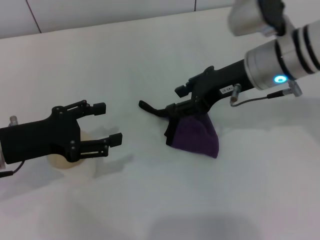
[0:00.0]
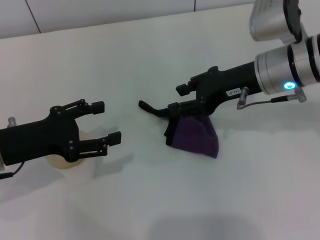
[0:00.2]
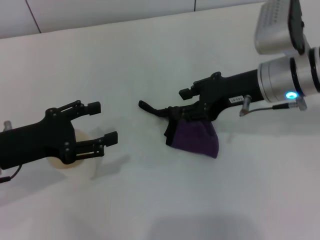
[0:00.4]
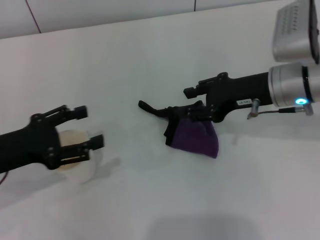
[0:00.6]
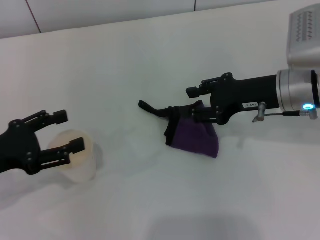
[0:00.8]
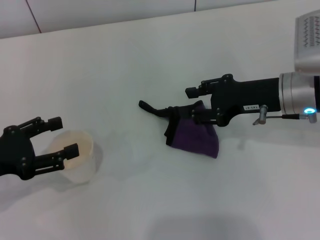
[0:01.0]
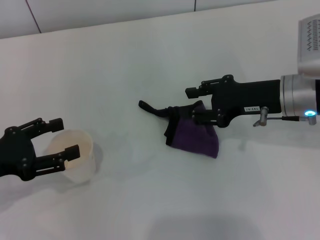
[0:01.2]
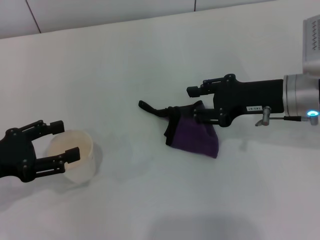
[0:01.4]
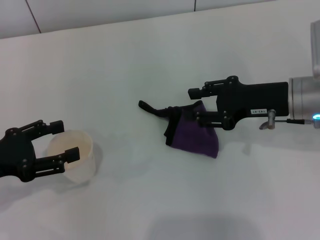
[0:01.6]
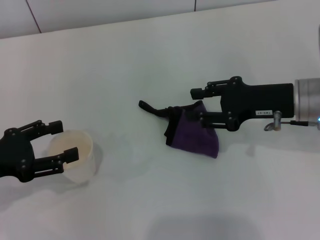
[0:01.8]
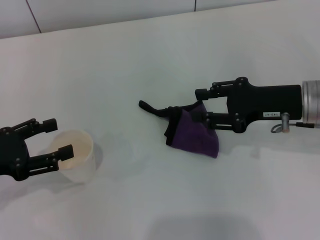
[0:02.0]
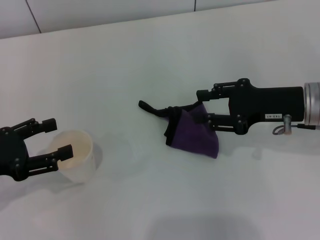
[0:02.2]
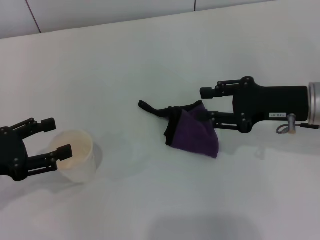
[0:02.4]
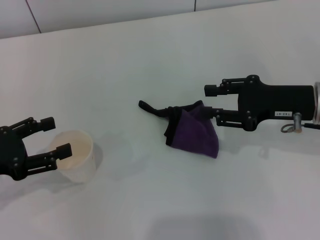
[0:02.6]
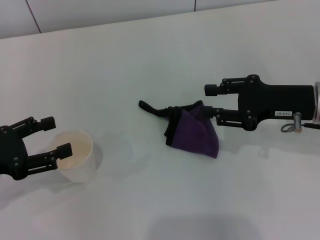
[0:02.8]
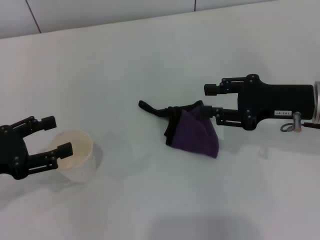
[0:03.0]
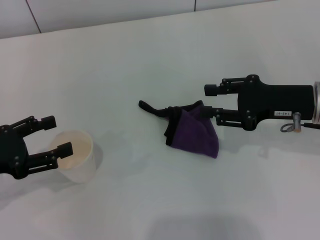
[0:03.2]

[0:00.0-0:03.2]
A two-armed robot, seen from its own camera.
0:00.0 to 0:01.6: The right gripper heads to the right, covering some 5 cm. Meanwhile the left gripper goes about 5 cm to the left.
0:01.6 to 0:03.2: The grippers stay close to where they were, moving slightly.
